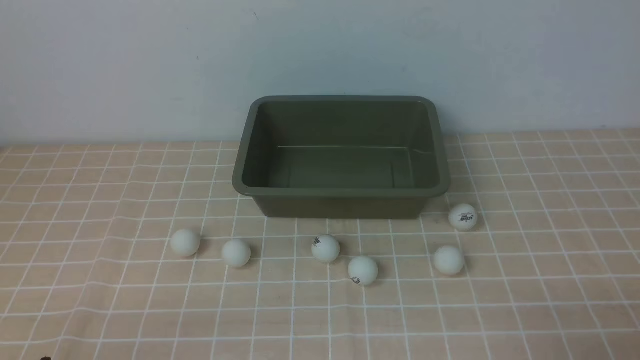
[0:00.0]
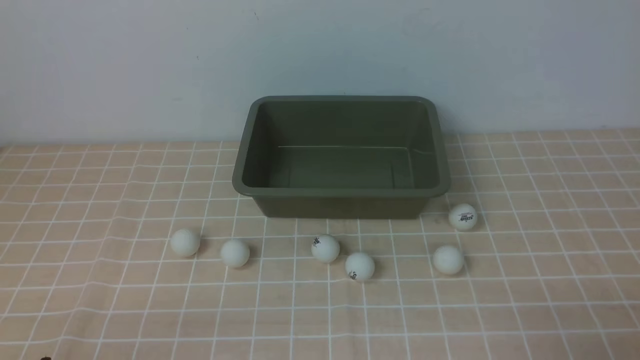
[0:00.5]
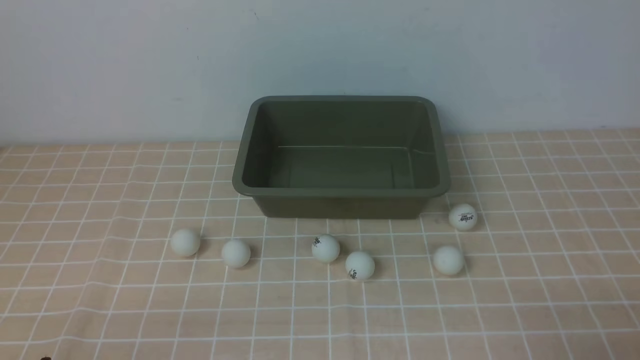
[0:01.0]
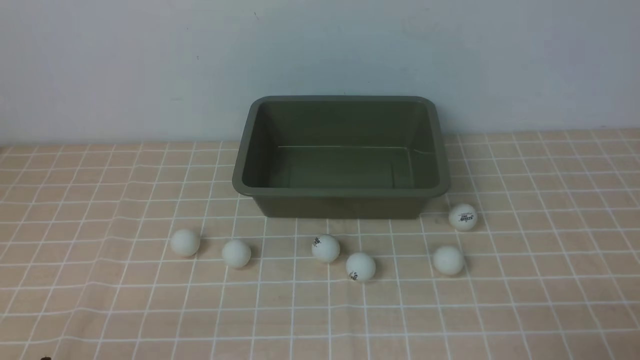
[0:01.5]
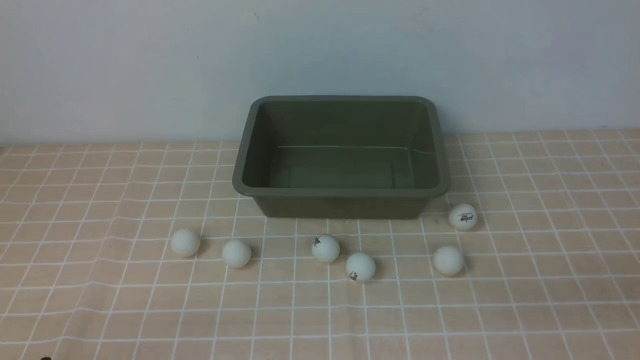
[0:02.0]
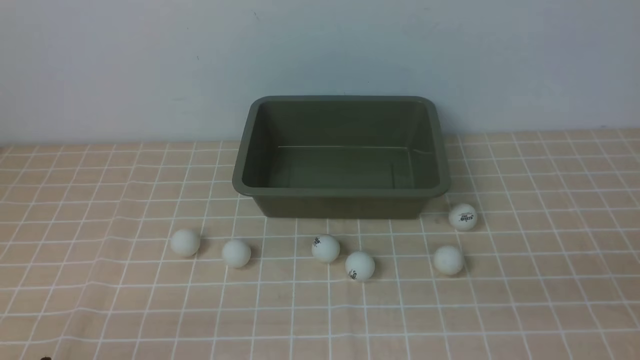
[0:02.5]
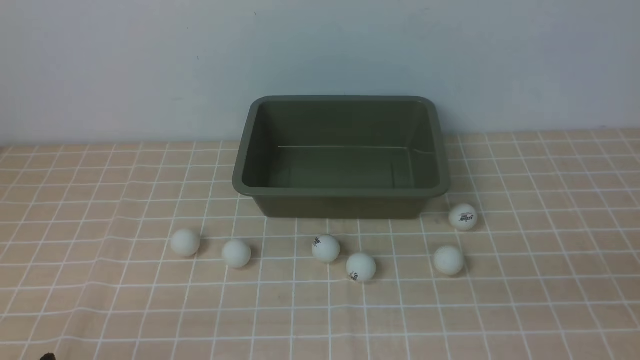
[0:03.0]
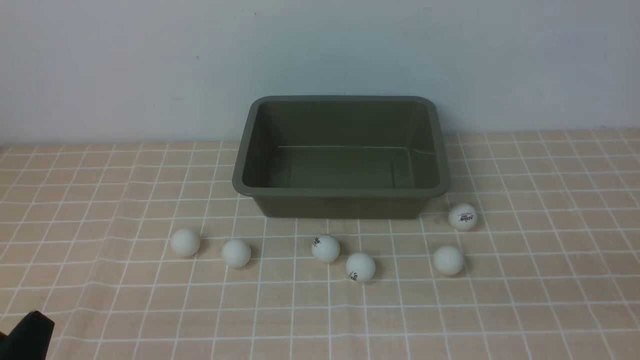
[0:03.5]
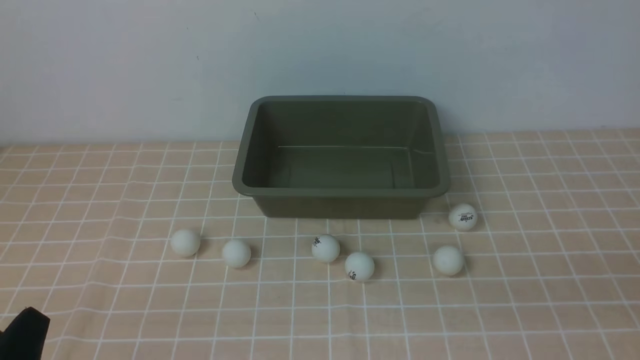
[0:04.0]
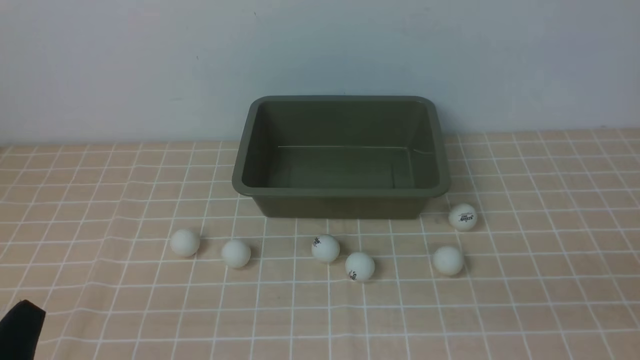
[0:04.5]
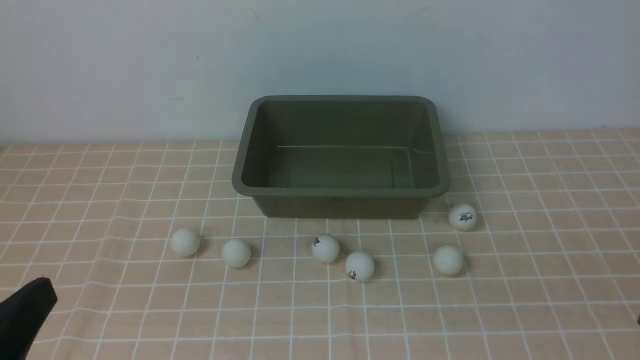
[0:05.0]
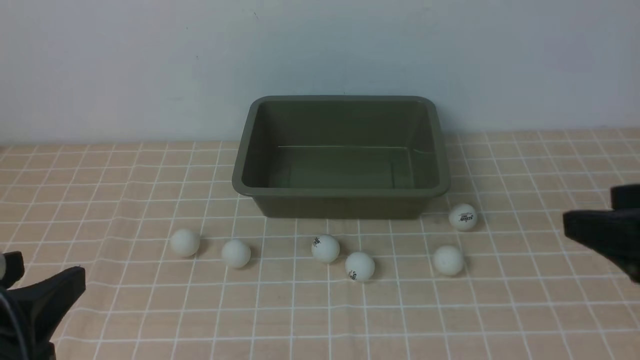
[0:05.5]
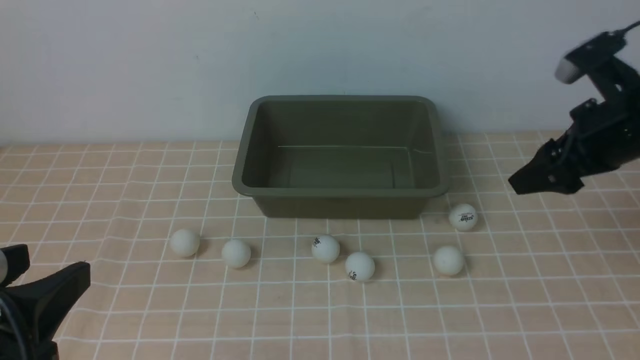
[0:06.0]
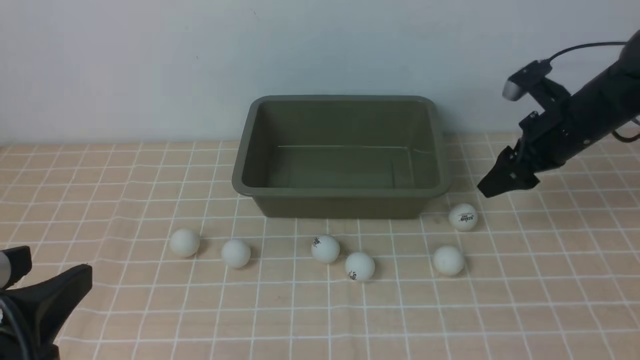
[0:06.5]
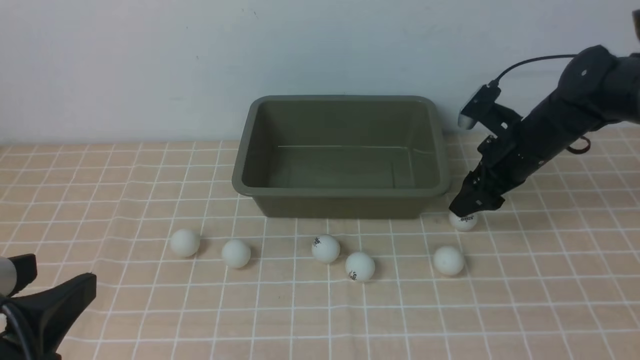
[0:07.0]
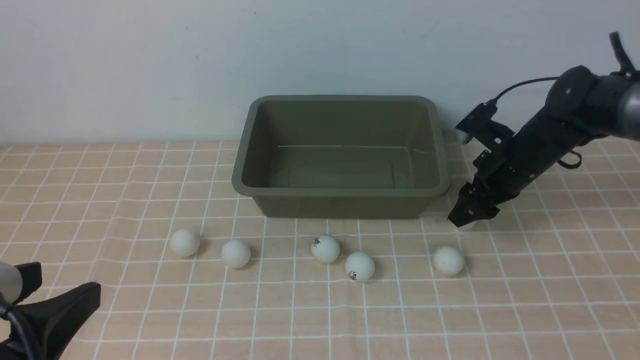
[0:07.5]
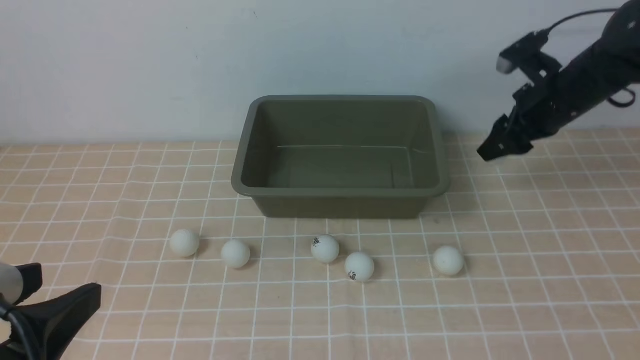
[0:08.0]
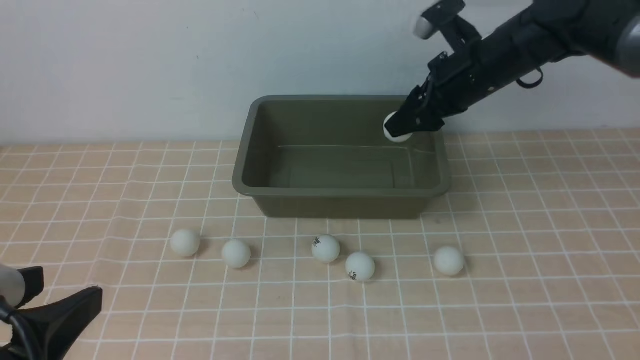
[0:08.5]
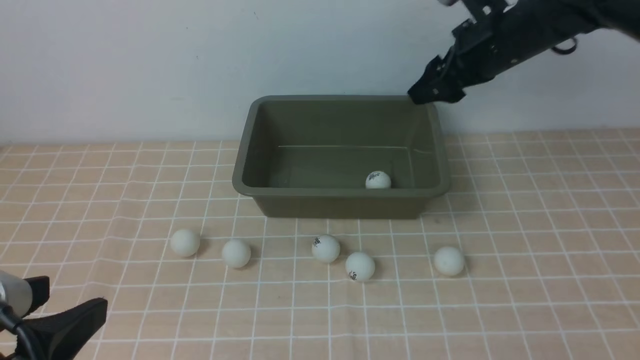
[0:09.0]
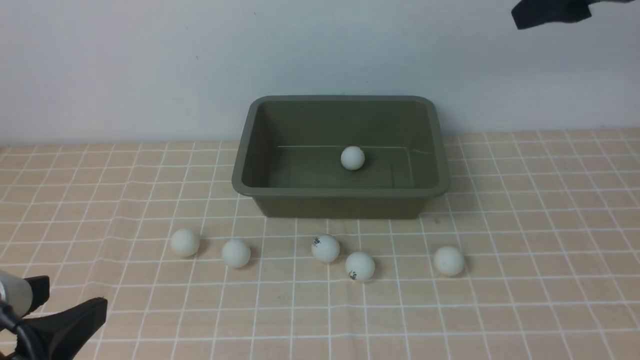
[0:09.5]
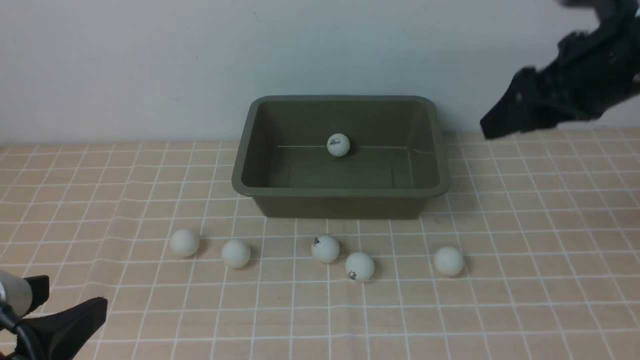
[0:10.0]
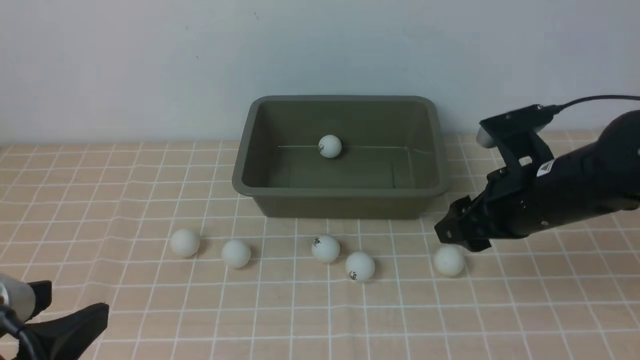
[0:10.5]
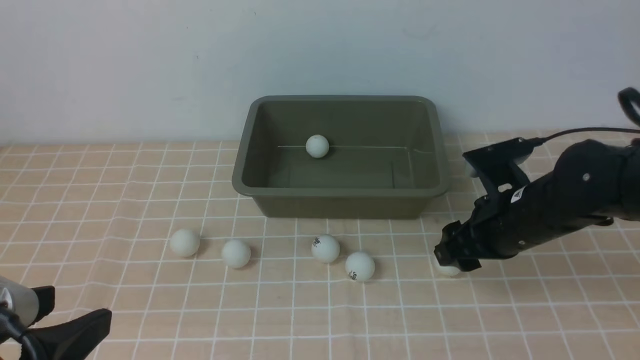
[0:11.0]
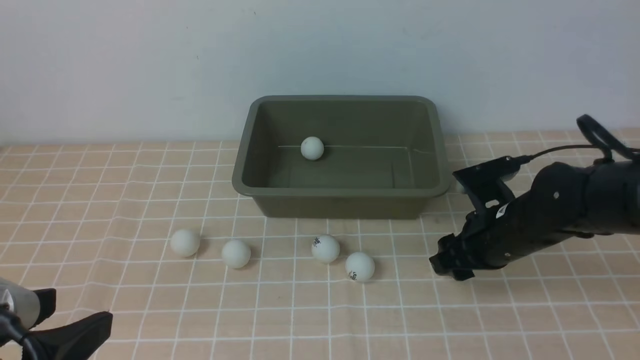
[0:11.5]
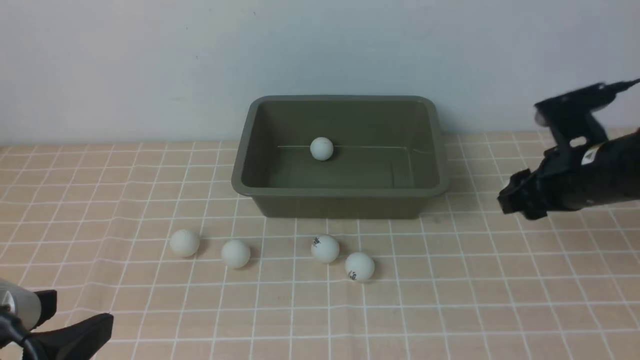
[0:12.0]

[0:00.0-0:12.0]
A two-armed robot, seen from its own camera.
Step, 0:00.0 to 0:07.5: use the right arm to clamp the table tennis ball closest to it.
Step, 0:08.0 to 0:09.0: use the right arm to put the table tennis ball into the box.
Step, 0:09.5 to 0:12.0: use the right arm to clamp the table tennis ball closest to it.
0:04.0 to 0:06.0: The right gripper heads forward, covering roughly 30 cm; the left gripper heads upward, covering roughly 10 cm.
0:06.0 to 0:08.0: The right gripper is displaced forward by approximately 10 cm, and closes its fingers.
0:08.0 to 0:10.0: The right gripper moves backward and upward, about 15 cm, and opens its fingers.
0:10.0 to 0:12.0: The right gripper shifts some 10 cm downward.

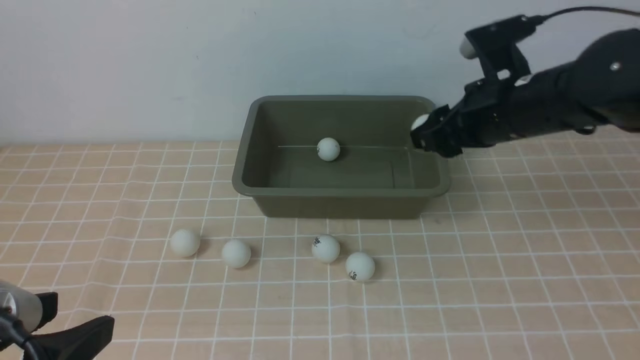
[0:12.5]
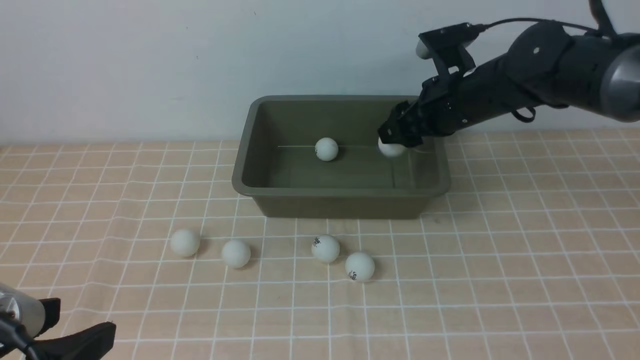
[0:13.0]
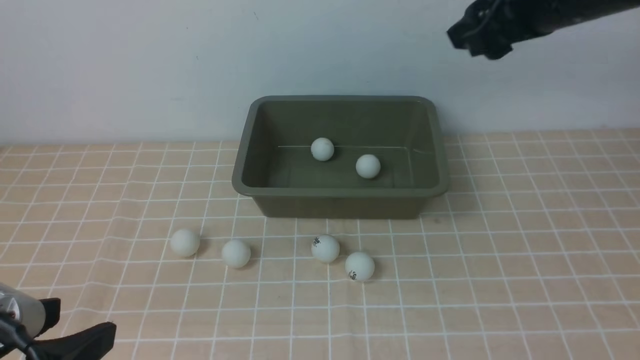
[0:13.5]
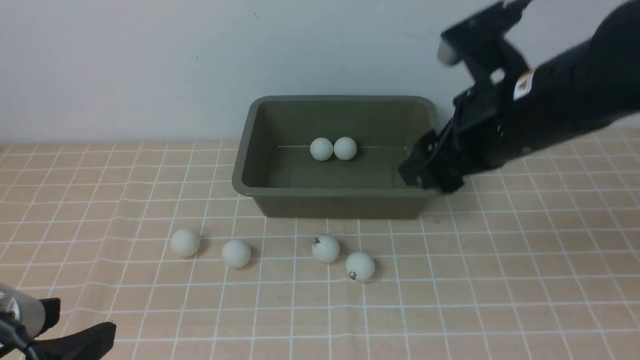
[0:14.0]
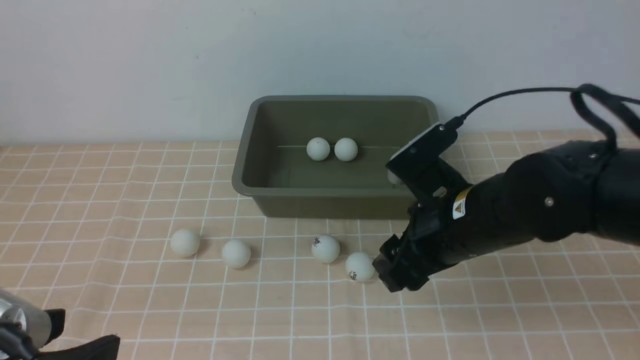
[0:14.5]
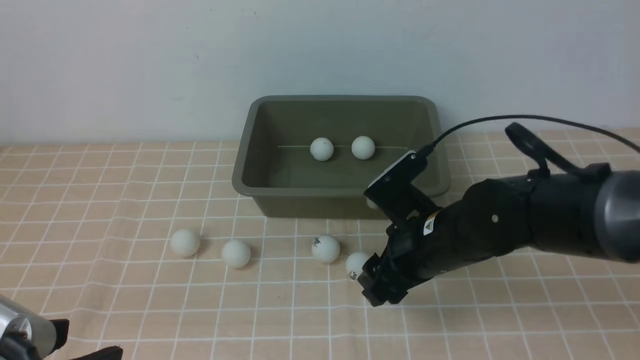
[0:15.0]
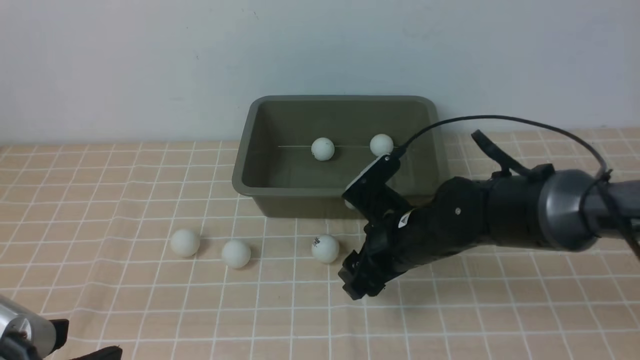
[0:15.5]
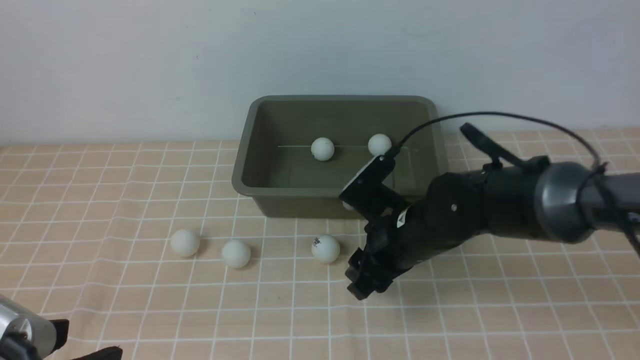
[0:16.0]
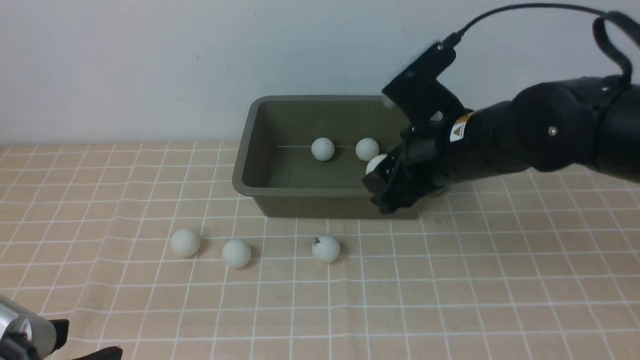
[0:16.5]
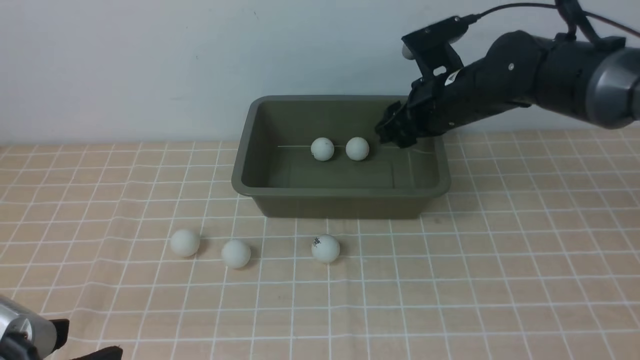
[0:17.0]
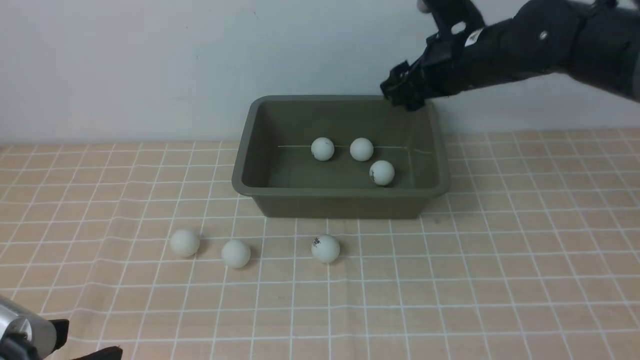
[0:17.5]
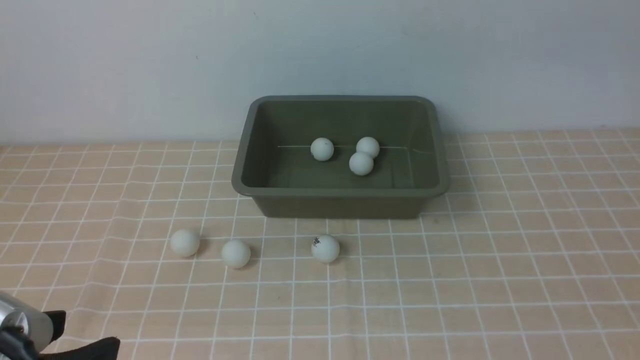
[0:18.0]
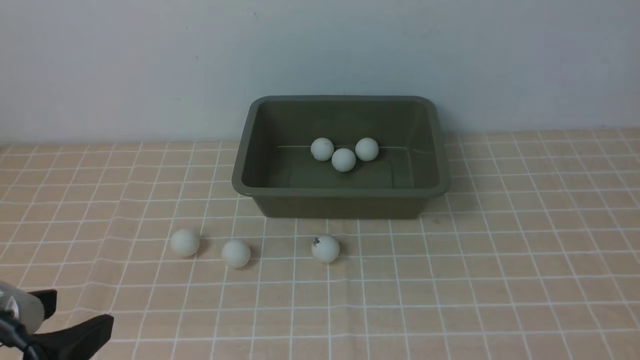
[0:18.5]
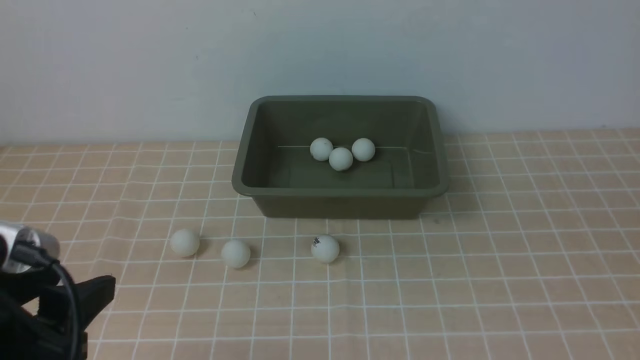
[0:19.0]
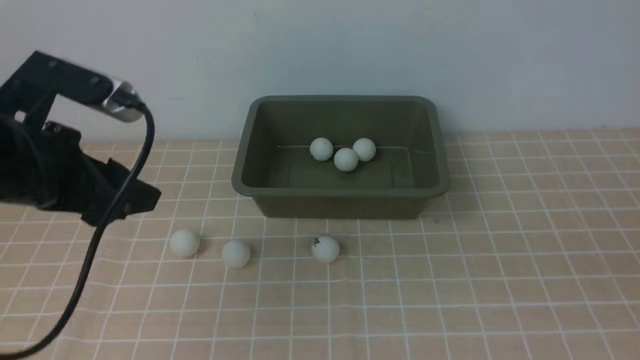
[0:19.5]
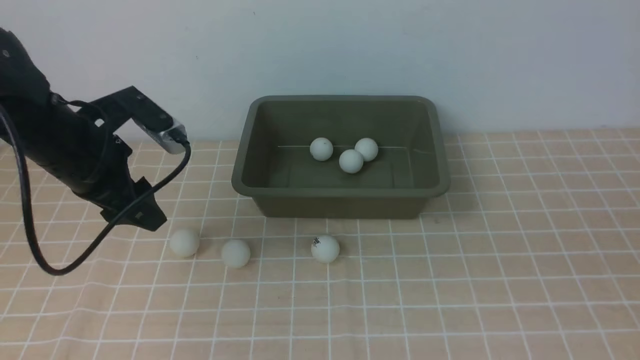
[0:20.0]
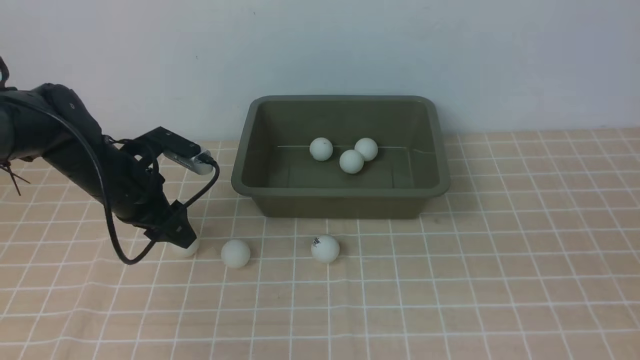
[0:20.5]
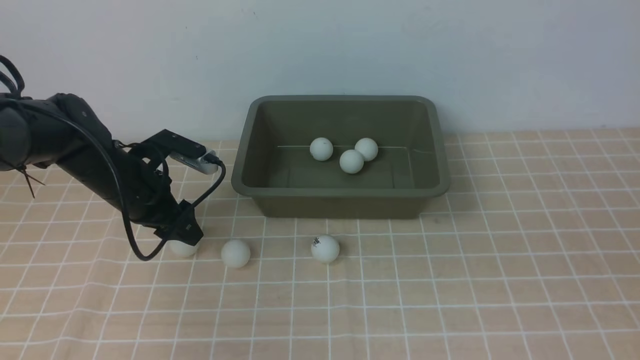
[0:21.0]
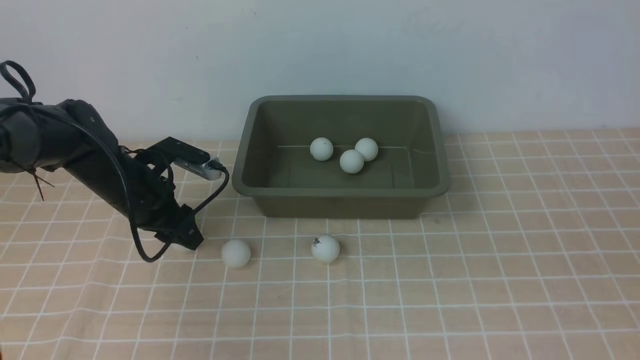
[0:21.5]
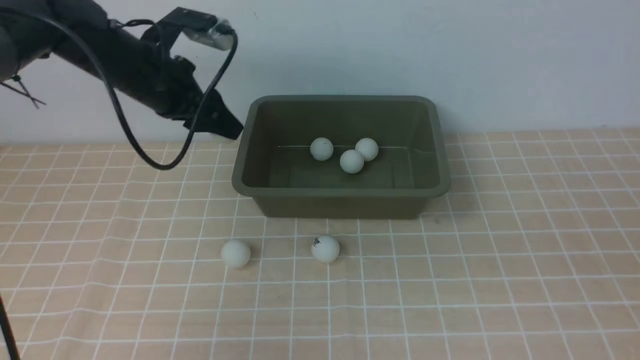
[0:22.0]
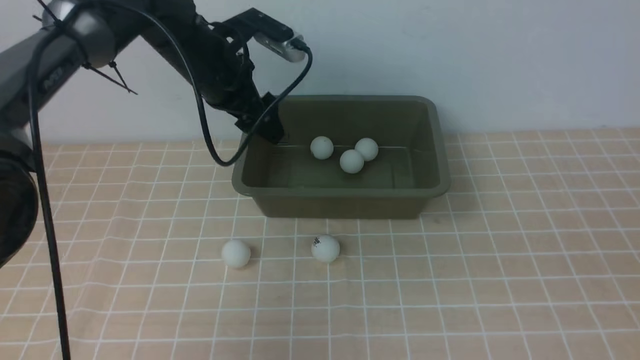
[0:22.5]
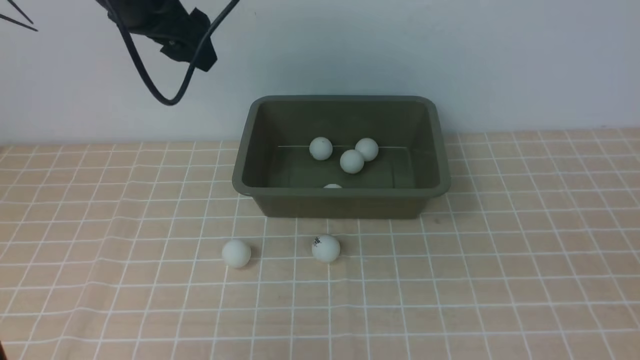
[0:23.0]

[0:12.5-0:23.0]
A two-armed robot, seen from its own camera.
Step, 0:13.5 to 0:16.0: use the right arm to clamp the table tennis ball closest to it.
Step, 0:16.5 to 0:17.5: use the right arm to put the table tennis ball into the box.
Step, 0:18.0 to 0:21.5: use the left arm to clamp the table tennis ball closest to it.
Step, 0:22.0 to 0:22.5: use the left arm to put the table tennis ball into the box.
0:12.5 to 0:14.5: The right gripper shifts some 10 cm backward and to the left, goes upward and returns, roughly 10 cm each way, and opens up.
0:14.5 to 0:16.5: The right gripper goes some 5 cm forward, and closes up.
0:16.5 to 0:19.0: The right gripper shifts approximately 35 cm backward, to the right and upward, and opens, then closes again.
0:19.0 to 0:21.0: The left gripper is displaced forward and downward by approximately 30 cm.
0:21.0 to 0:23.0: The left gripper heads upward, covering some 20 cm, and closes, then reopens.
